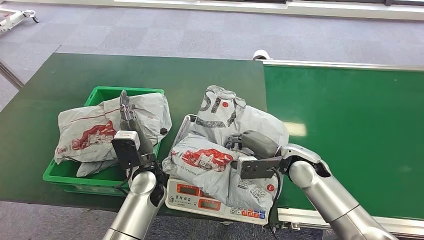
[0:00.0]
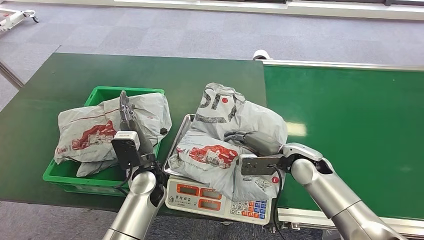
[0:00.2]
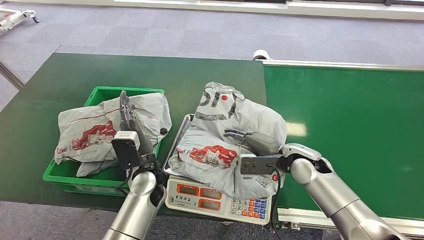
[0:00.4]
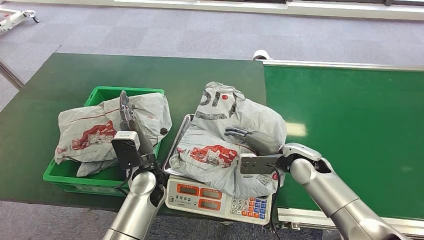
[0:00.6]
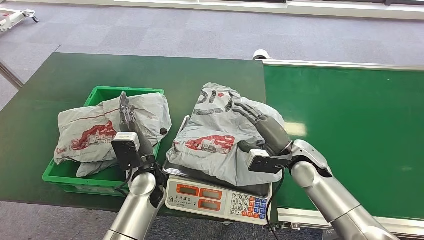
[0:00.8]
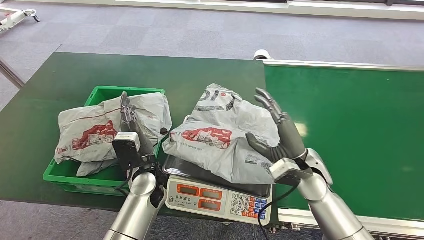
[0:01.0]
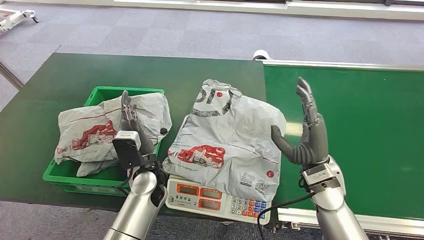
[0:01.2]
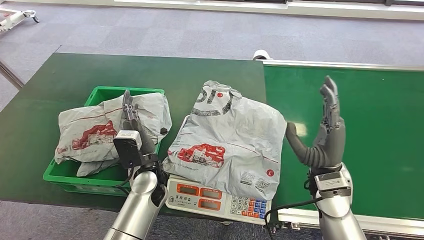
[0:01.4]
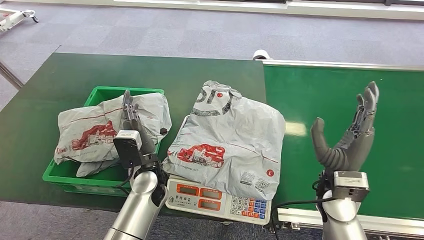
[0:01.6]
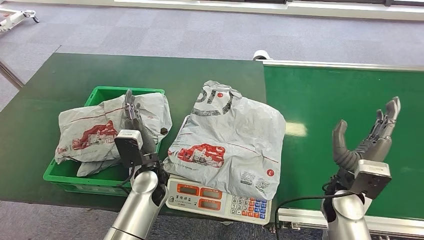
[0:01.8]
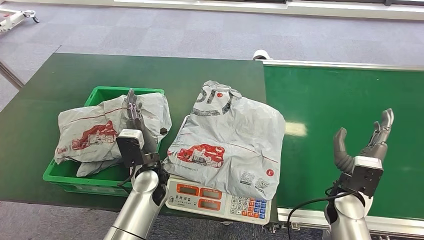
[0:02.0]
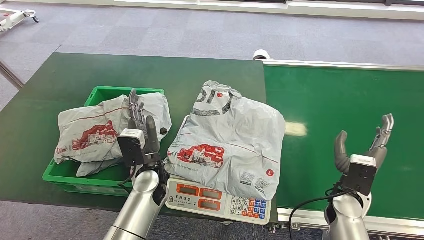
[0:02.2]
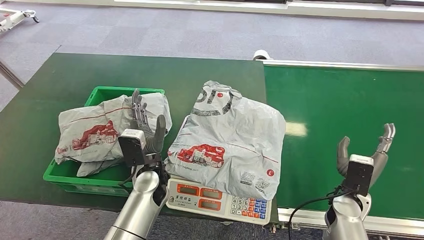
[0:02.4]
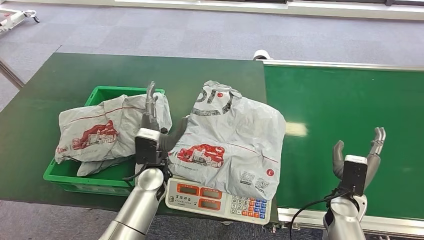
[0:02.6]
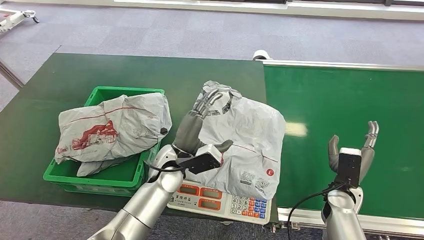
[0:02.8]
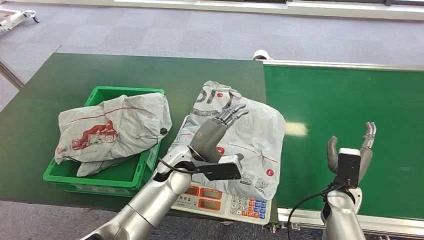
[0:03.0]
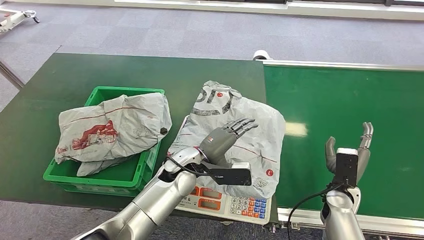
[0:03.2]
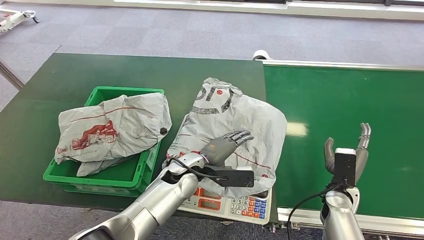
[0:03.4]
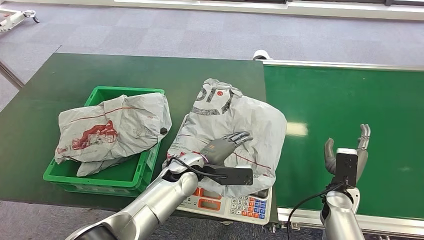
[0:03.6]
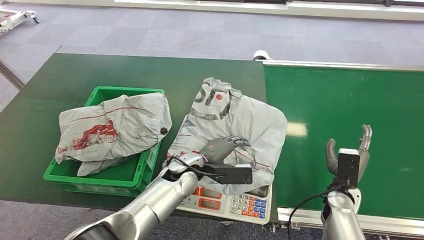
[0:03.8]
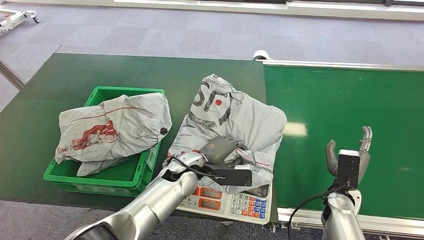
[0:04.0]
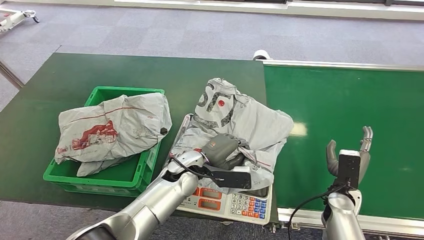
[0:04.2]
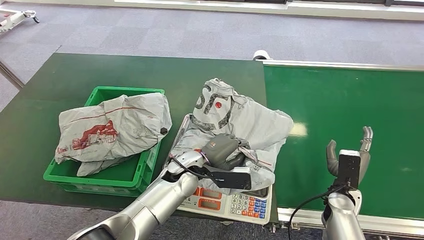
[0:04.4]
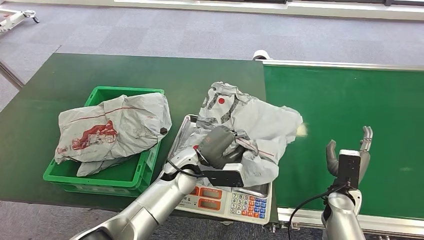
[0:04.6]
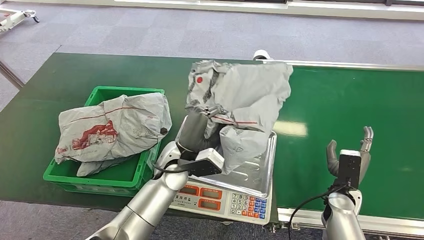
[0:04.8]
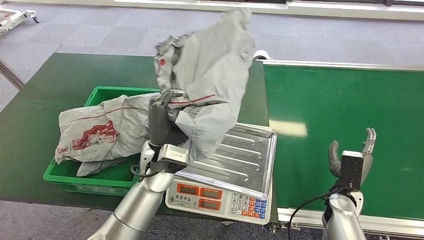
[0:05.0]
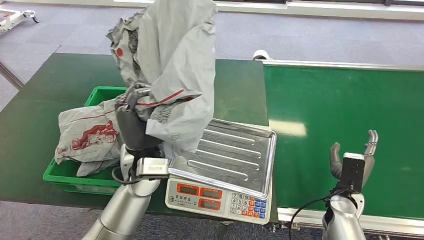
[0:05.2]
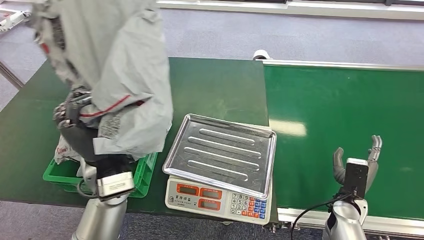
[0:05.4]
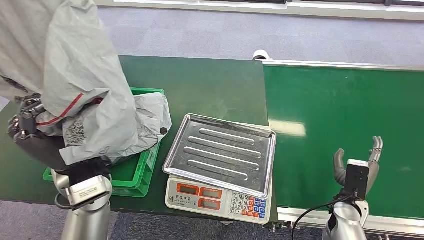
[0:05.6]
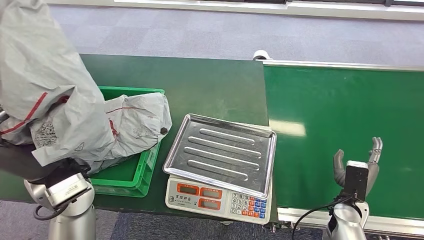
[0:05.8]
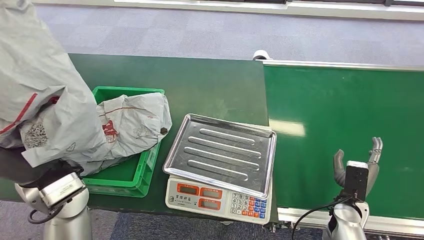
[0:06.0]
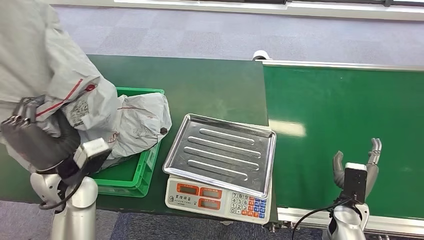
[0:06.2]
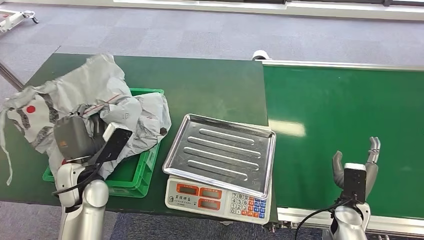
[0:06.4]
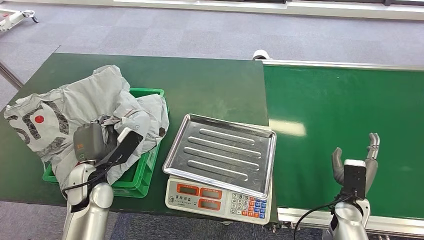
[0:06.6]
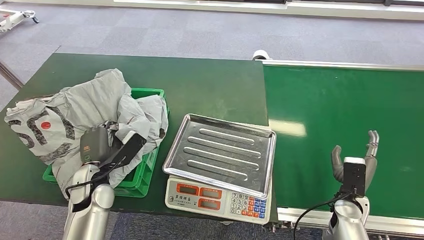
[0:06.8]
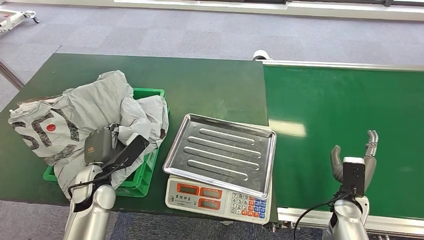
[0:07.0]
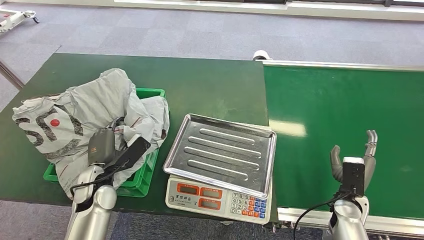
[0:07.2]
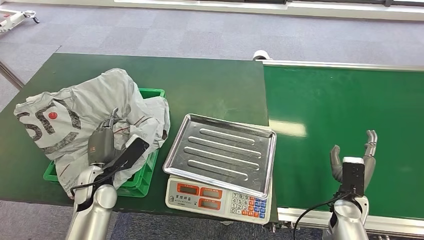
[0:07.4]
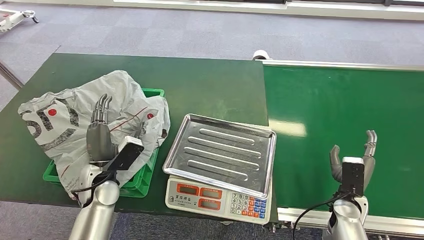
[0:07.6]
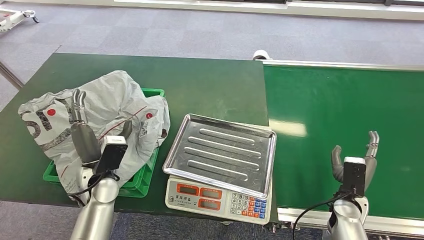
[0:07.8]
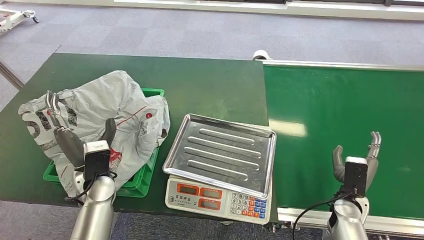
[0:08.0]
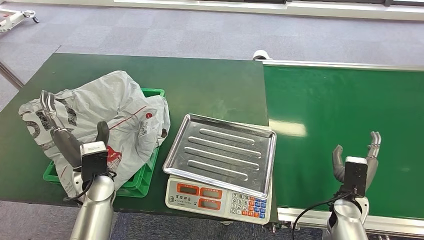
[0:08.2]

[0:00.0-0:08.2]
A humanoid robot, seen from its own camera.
Step, 0:01.4 to 0:05.0: Pick up the package from the inbound machine.
Step, 0:05.4 to 0:08.2: Place the package into the parcel locker.
0:00.0 to 0:01.6: The right hand heads backward and to the right, covering approximately 10 cm.
0:01.6 to 0:03.2: The right hand shifts approximately 15 cm downward and to the right; the left hand travels to the right by roughly 5 cm.
0:03.2 to 0:05.0: The left hand goes roughly 5 cm upward.

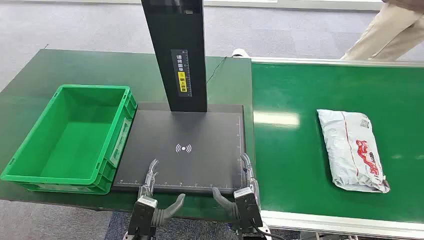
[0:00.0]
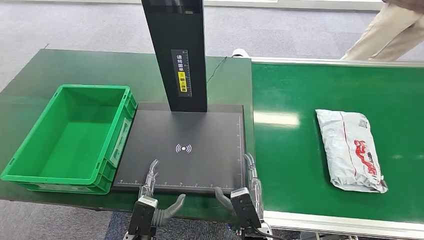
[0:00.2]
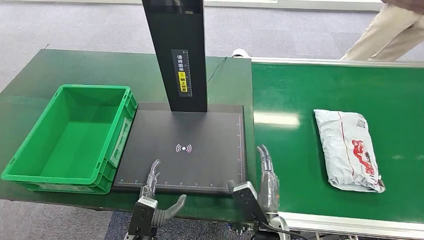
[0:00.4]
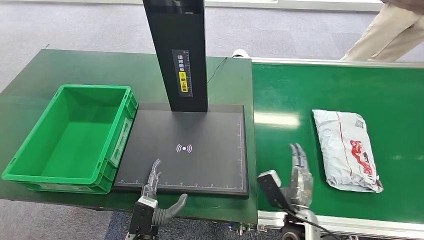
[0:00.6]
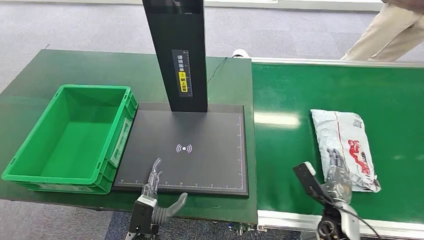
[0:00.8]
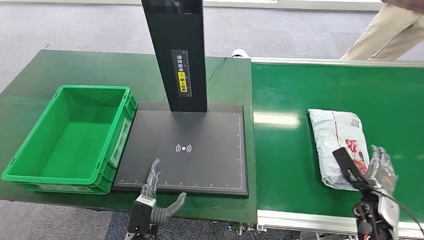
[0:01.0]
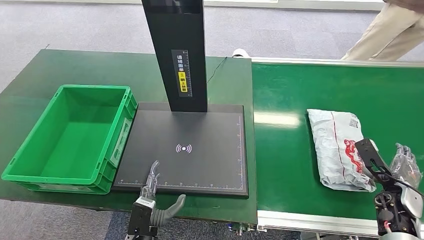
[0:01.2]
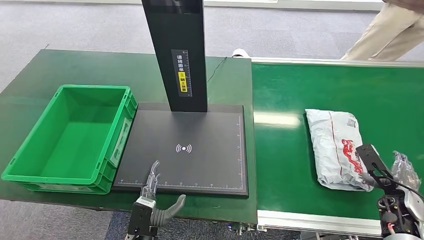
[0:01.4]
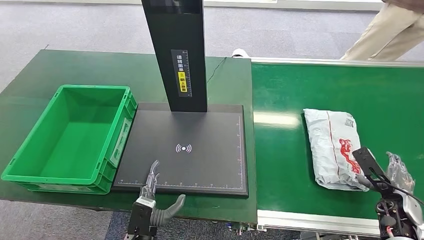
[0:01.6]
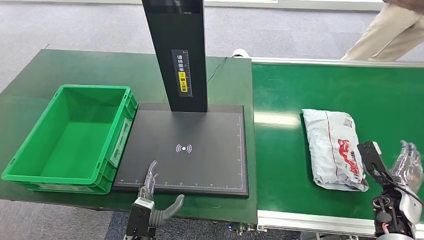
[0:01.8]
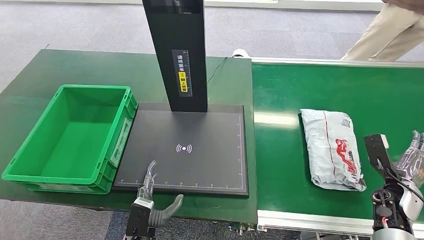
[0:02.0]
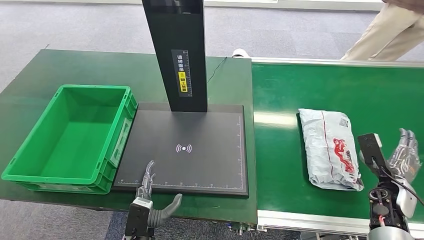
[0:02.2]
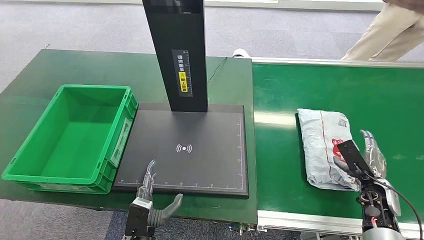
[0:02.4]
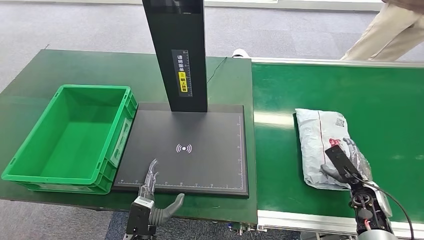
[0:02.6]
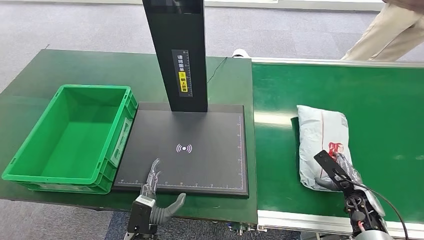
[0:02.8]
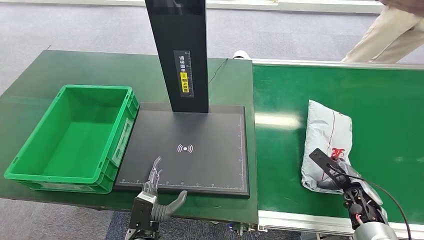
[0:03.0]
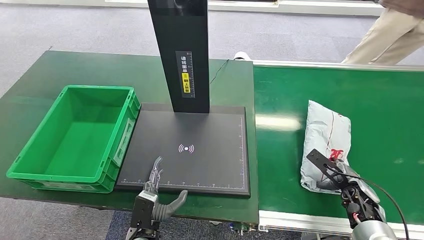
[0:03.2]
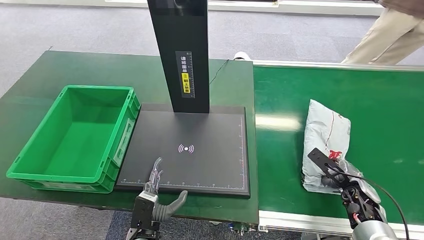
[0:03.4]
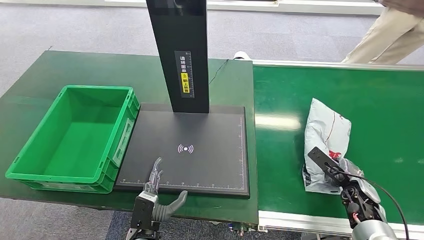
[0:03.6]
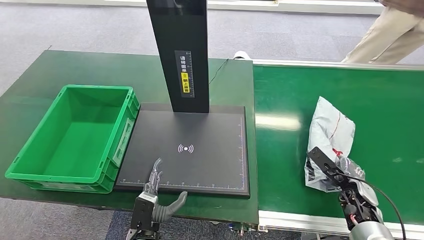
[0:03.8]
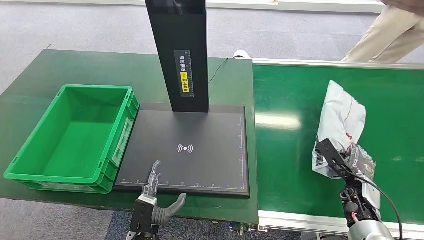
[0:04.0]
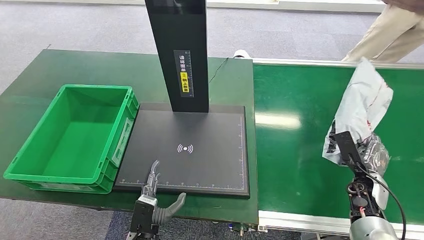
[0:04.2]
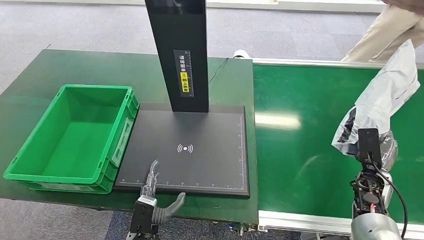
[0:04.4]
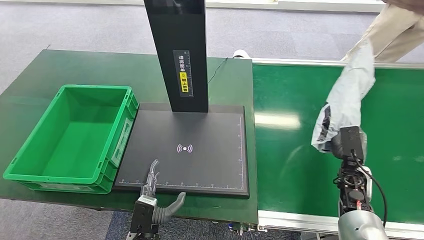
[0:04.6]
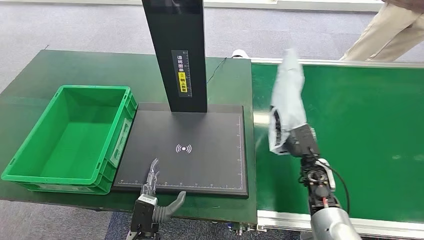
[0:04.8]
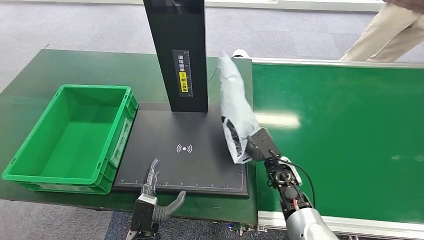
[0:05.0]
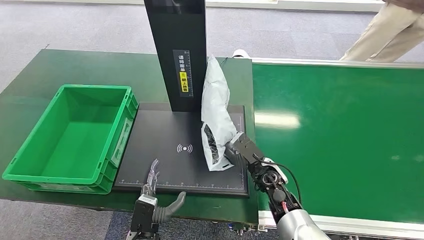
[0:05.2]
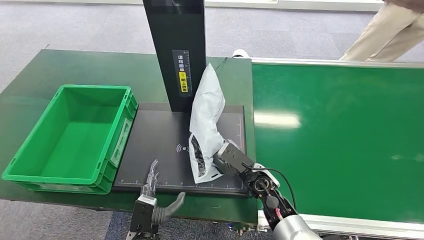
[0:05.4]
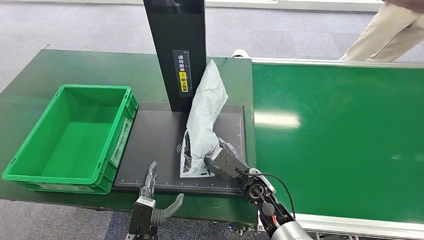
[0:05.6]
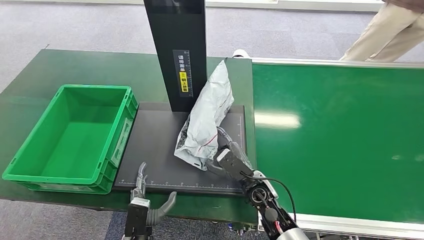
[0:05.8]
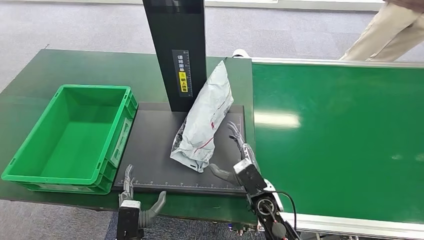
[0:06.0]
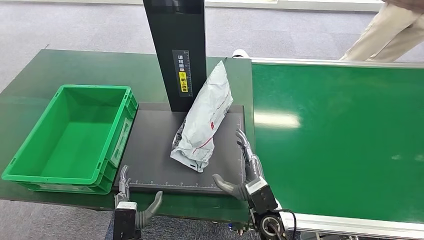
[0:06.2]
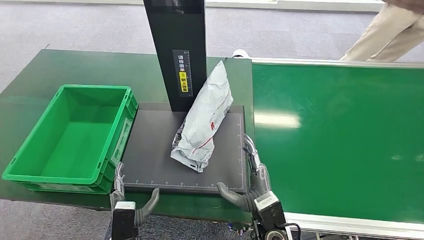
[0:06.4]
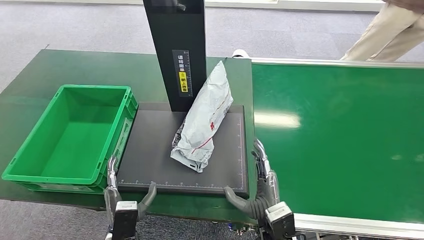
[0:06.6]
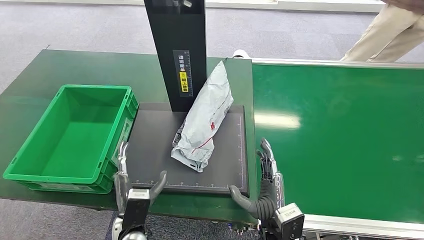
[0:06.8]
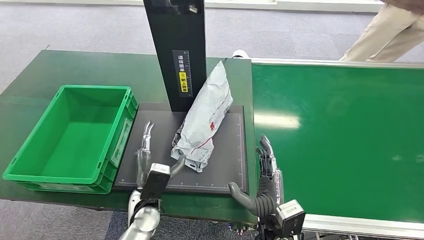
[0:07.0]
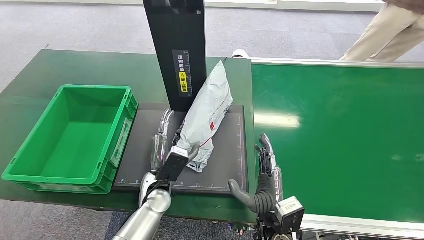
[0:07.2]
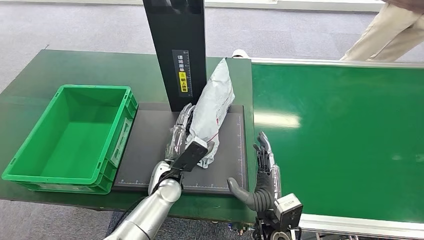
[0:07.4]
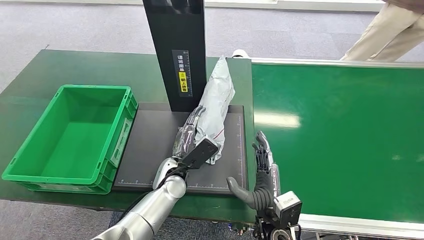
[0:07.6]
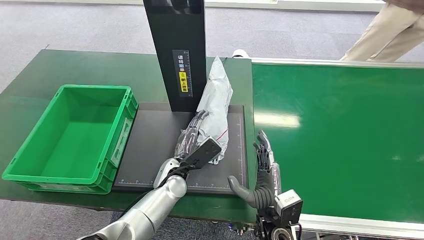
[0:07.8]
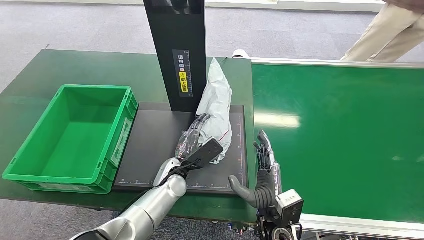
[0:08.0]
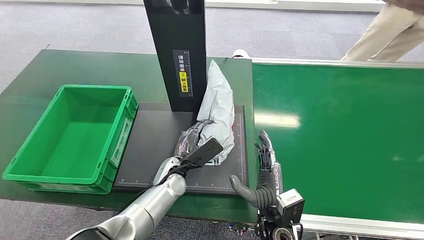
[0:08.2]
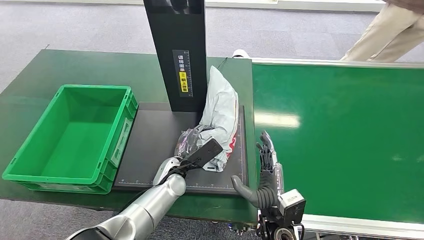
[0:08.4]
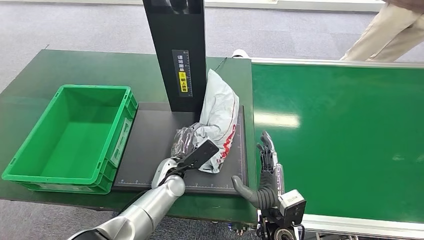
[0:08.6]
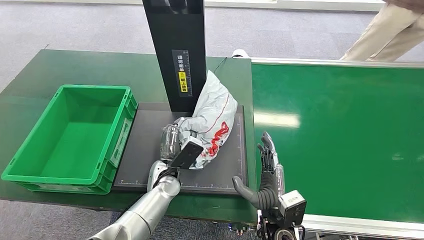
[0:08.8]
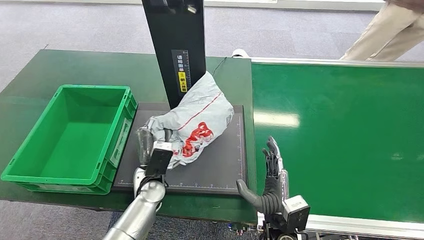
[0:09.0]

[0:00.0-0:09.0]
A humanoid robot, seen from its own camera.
Step, 0:00.0 to 0:04.6: Pick up the package from the conveyor belt.
Step, 0:04.8 to 0:06.6: Place the package onto the inbound machine.
0:01.6 to 0:03.0: The right hand moves to the left, some 5 cm.
0:03.0 to 0:04.4: The right hand changes place by about 5 cm.
0:06.0 to 0:07.6: The left hand is displaced forward, upward and to the right by approximately 20 cm. Meanwhile the right hand shifts some 5 cm backward.
0:07.6 to 0:09.0: The left hand shifts by roughly 5 cm.
